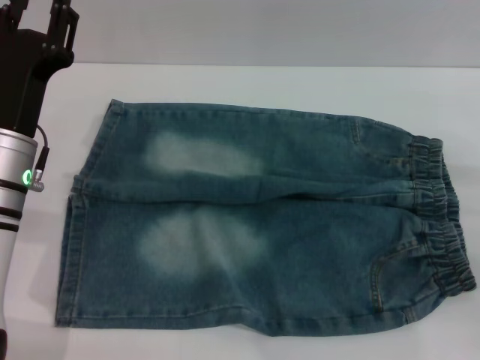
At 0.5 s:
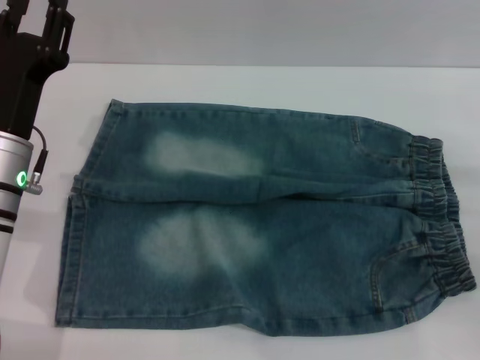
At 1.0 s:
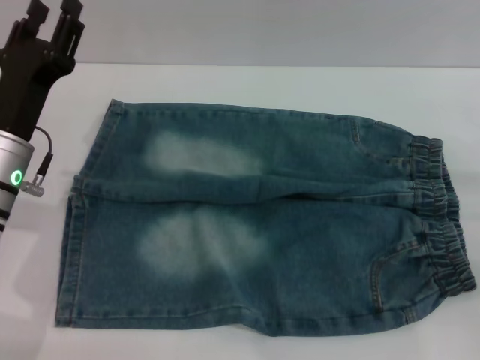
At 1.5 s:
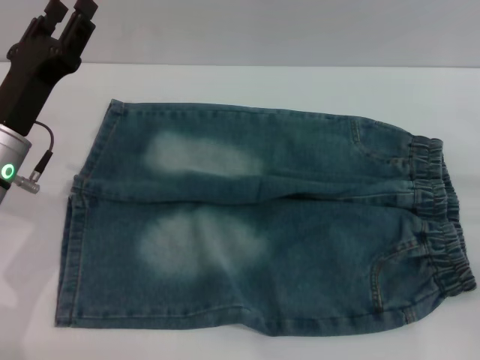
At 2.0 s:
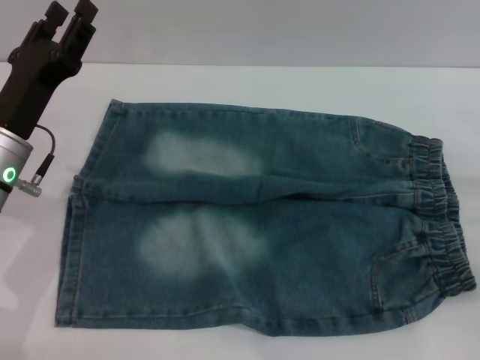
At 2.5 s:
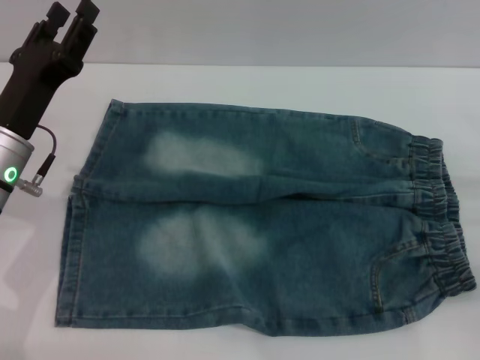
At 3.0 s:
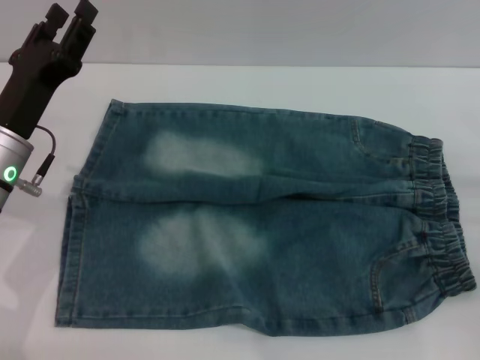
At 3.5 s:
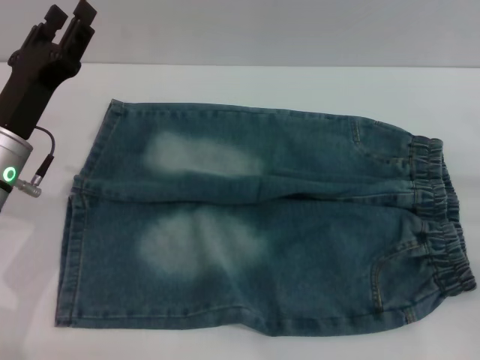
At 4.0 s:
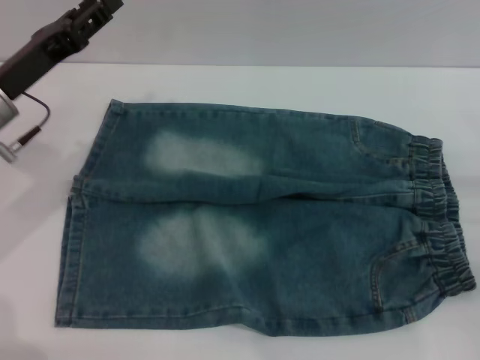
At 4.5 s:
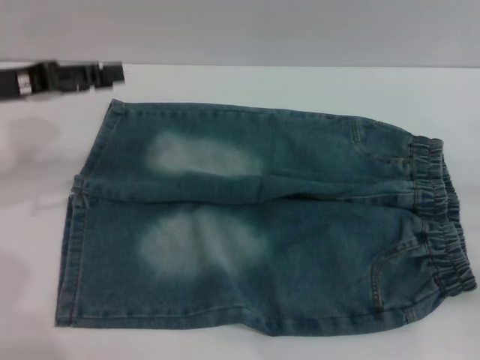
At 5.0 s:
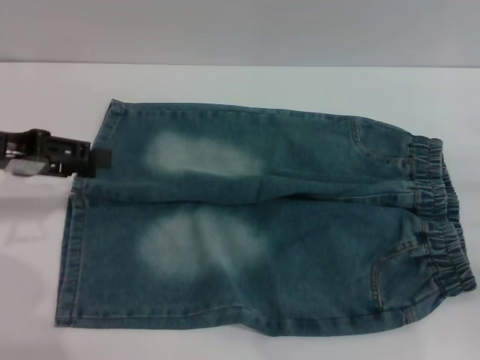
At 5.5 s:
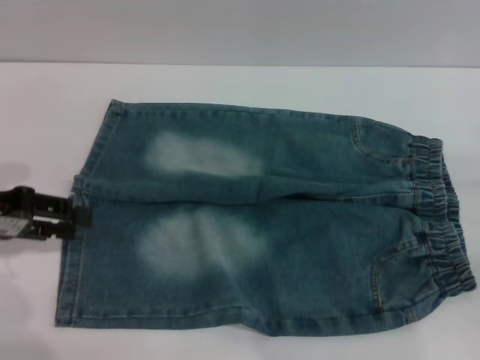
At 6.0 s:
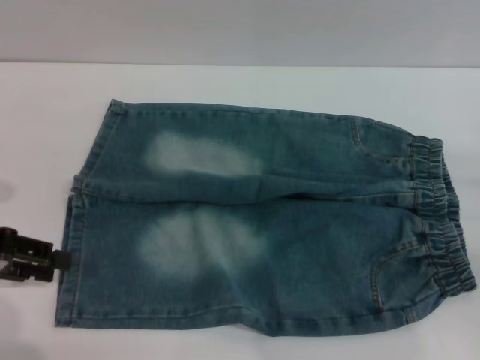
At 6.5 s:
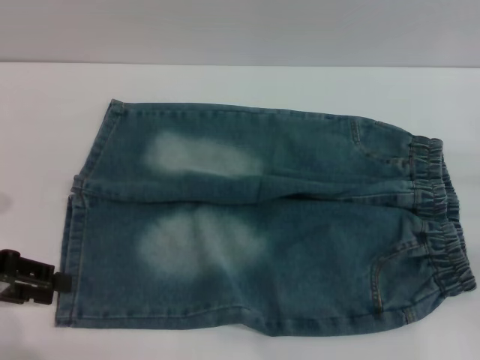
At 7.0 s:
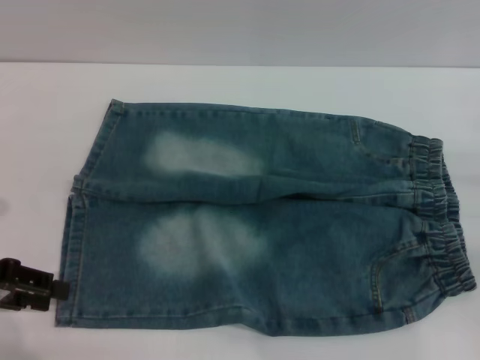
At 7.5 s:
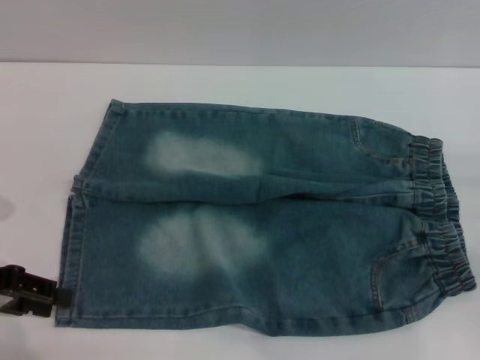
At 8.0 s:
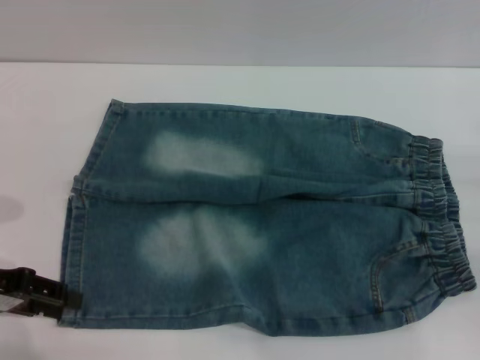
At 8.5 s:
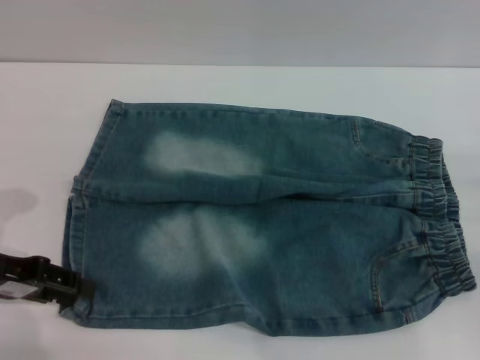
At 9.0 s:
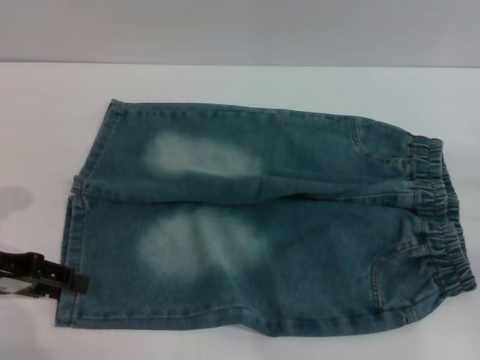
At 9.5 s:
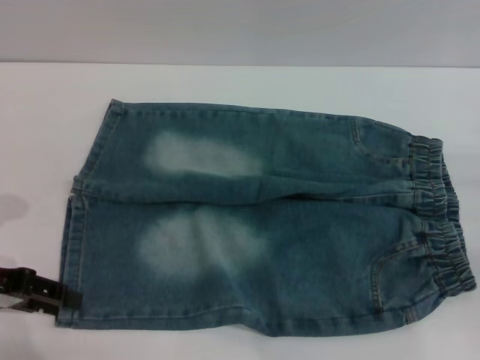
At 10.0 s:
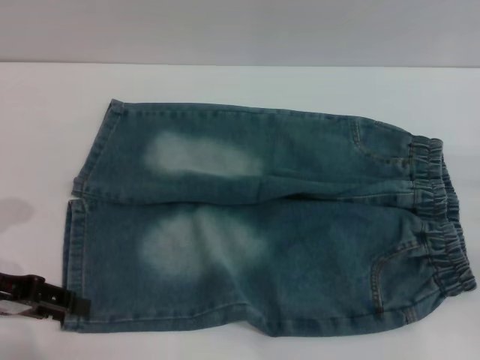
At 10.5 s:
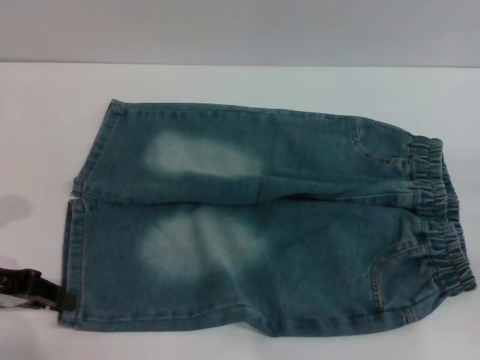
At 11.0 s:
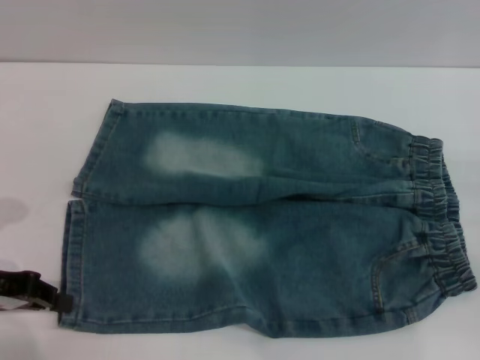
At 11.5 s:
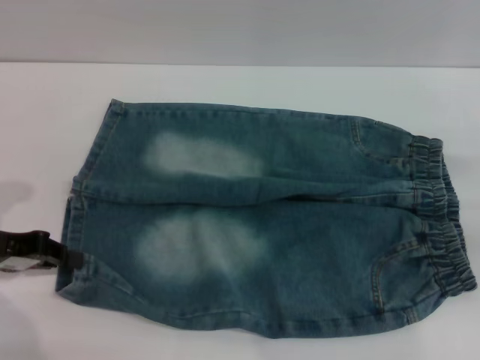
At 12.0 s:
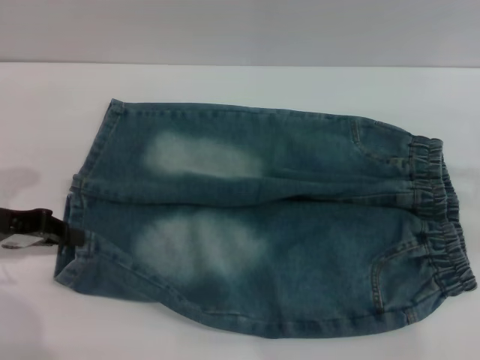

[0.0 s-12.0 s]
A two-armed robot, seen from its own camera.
2.0 to 4.0 s: The left gripper moves about 5 cm.
4.0 to 6.0 s: The left gripper travels to the left and backward by roughly 10 cm.
6.0 to 10.0 s: There are only small adjustments of the grippers.
10.0 to 12.0 s: The left gripper closes. The right gripper goes roughly 15 cm upward.

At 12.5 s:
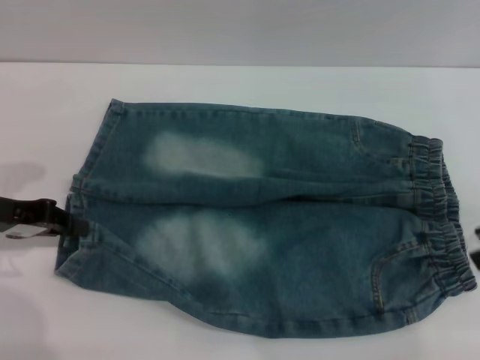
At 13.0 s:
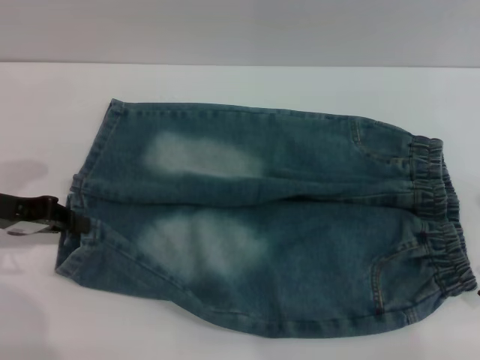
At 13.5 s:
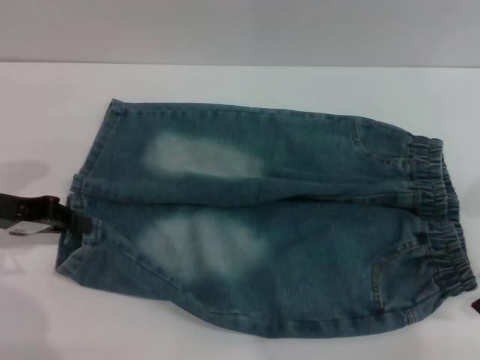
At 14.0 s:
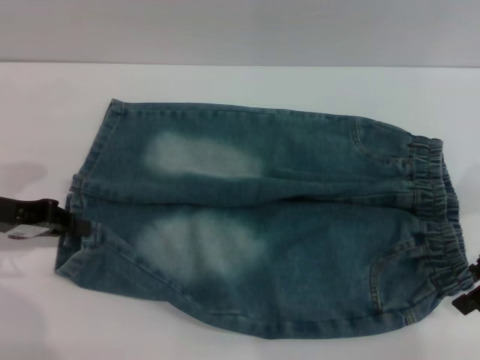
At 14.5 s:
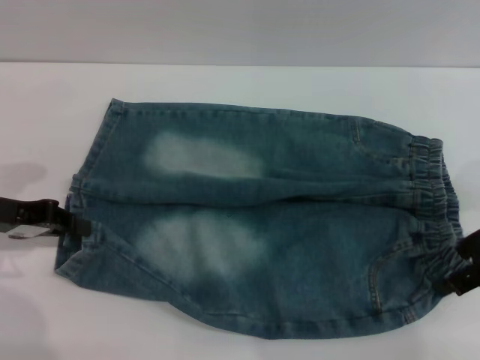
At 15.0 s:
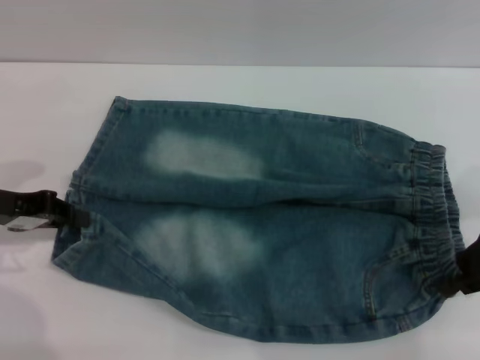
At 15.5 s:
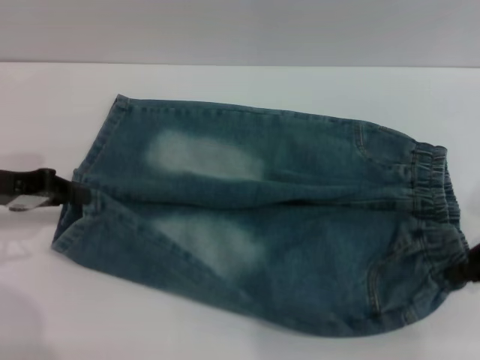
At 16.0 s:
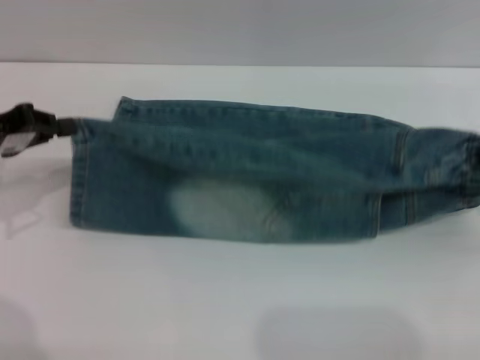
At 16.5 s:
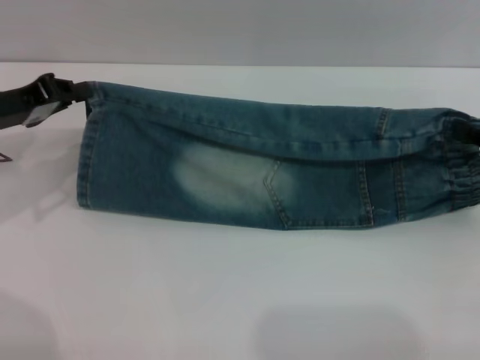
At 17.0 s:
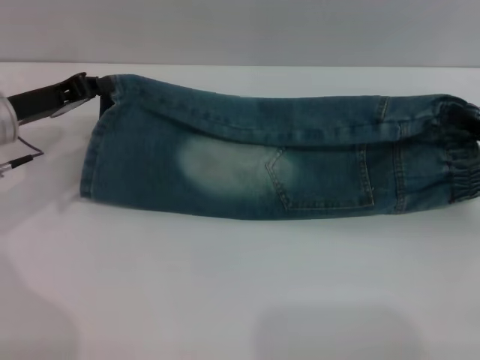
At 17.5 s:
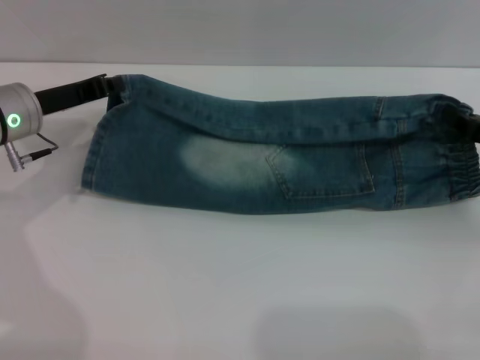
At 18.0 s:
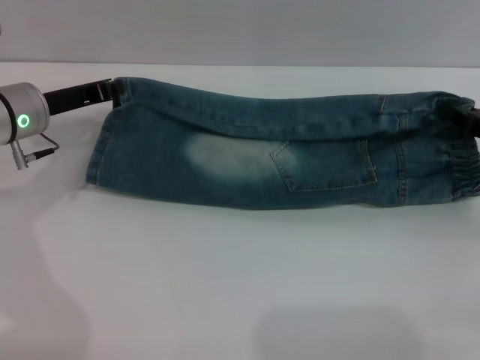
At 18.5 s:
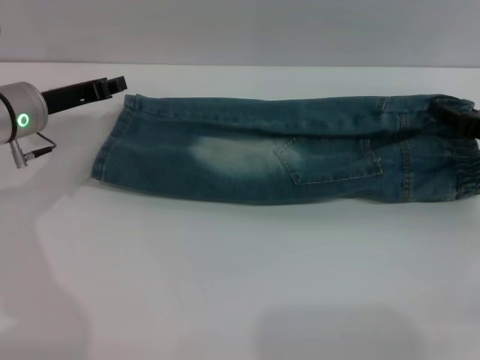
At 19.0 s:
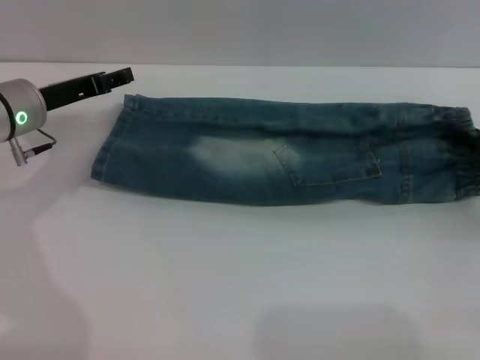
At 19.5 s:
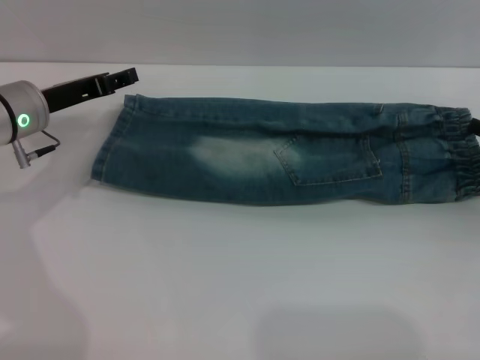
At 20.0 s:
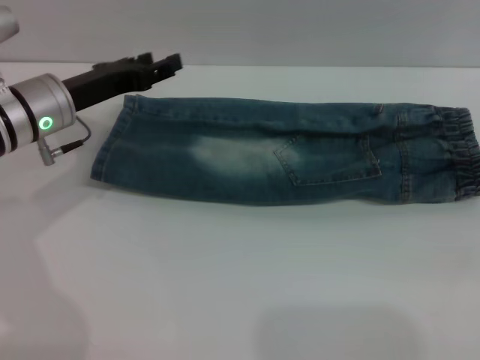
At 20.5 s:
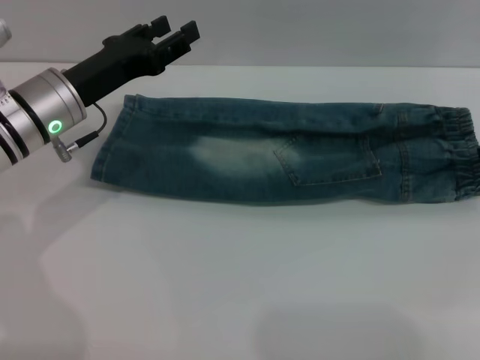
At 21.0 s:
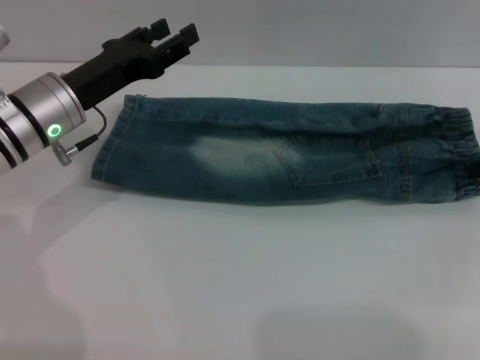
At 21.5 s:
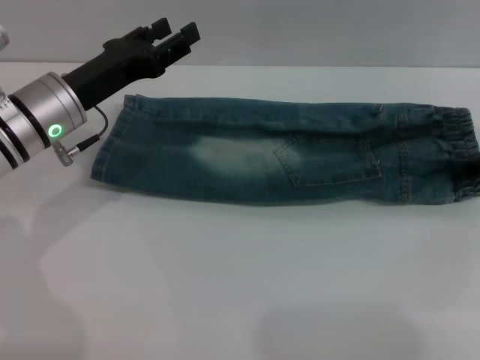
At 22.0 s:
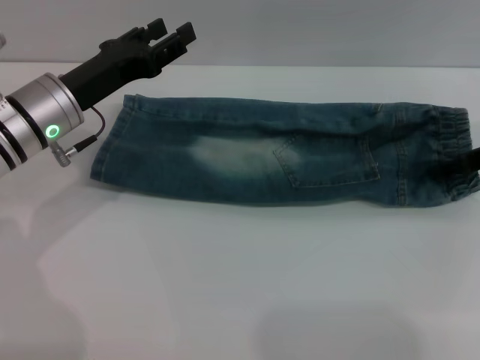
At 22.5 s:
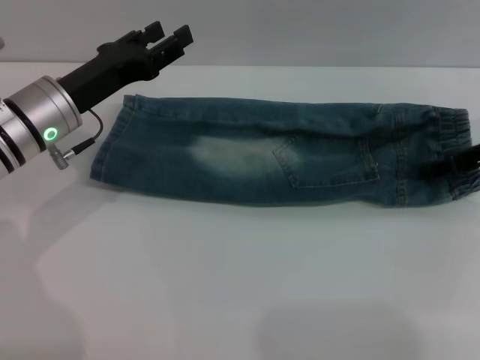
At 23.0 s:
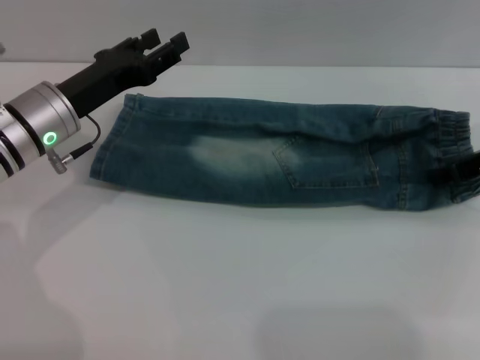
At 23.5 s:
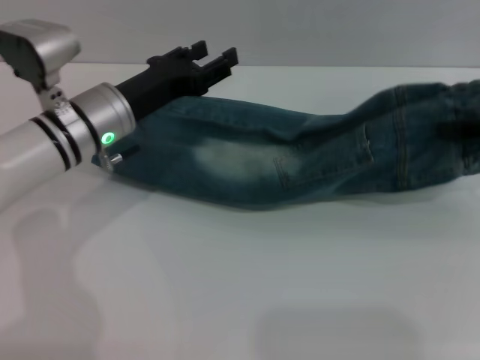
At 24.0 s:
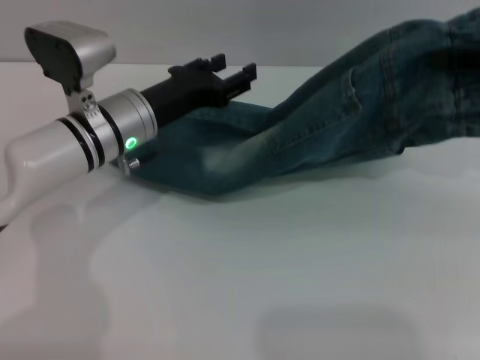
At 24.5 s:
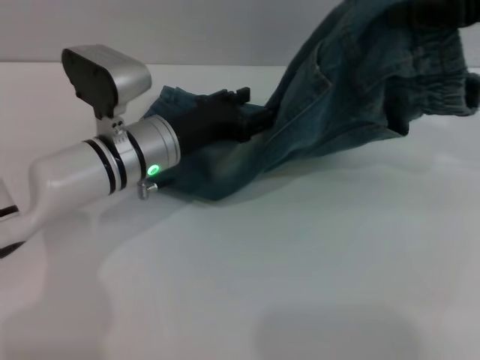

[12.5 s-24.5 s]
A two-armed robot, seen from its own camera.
Step, 12.5 to 19.5 s: Fold the bottom of the pants upward with both grippers.
12.5 to 14.5 s: The right gripper heads to the left, covering roughly 5 cm.
14.5 to 16.5 s: The right gripper shifts roughly 5 cm to the right, and closes.
16.5 to 18.5 s: The right gripper shifts by approximately 5 cm, and opens up. The left gripper heads to the right, covering about 5 cm.
18.5 to 20.5 s: The right gripper shifts approximately 10 cm upward. The left gripper moves roughly 5 cm, and opens its fingers.
20.5 to 22.5 s: The right gripper moves to the left and downward, about 10 cm.
22.5 to 24.5 s: The right gripper moves upward, about 15 cm, and closes up. The left gripper heads to the right, covering roughly 10 cm.

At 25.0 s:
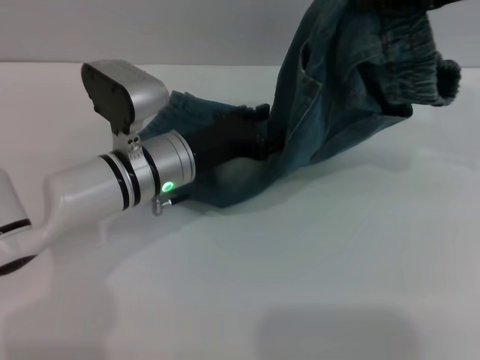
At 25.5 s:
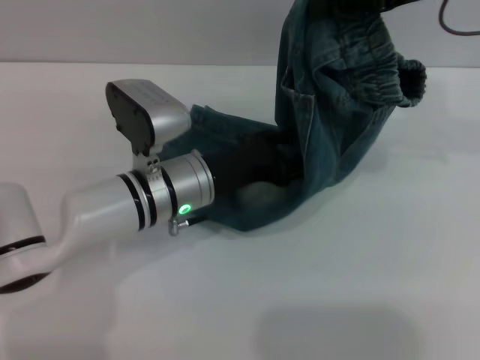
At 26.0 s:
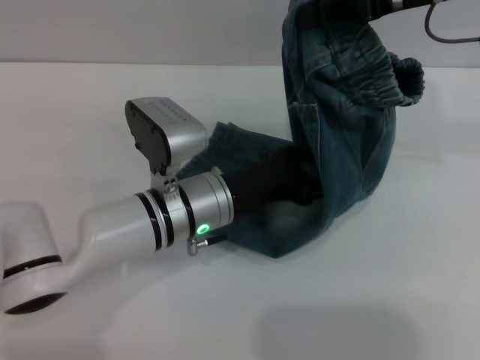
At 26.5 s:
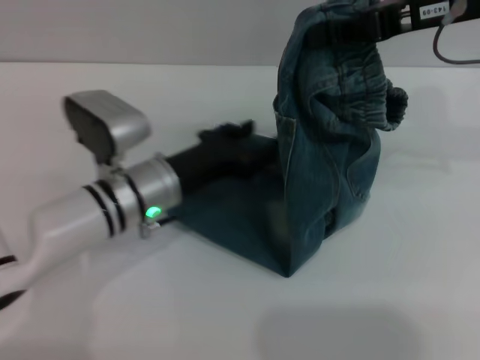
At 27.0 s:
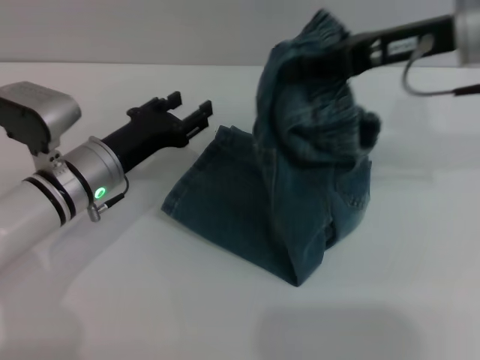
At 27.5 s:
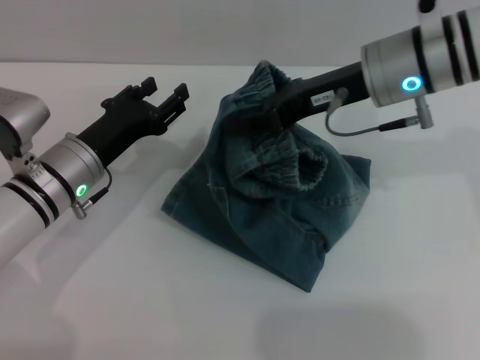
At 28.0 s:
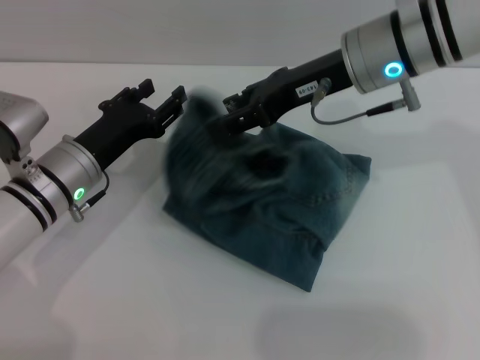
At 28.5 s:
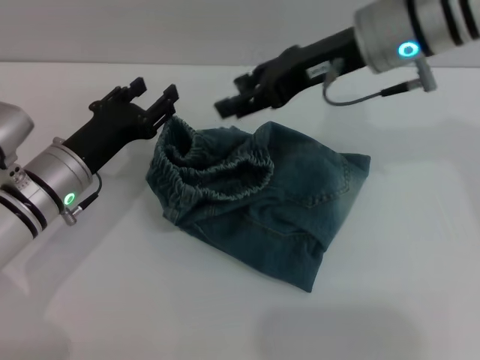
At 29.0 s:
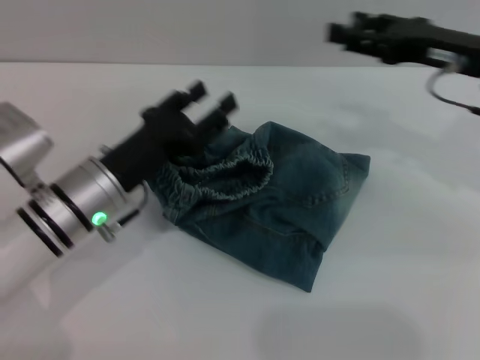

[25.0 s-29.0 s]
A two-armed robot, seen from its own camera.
Step, 25.0 to 28.5 s: Fold the pants from right to left with the right gripper.
25.0 to 27.0 s: The left gripper is displaced to the left by some 5 cm. Meanwhile the right gripper shifts some 10 cm downward and to the left.
27.0 to 29.0 s: The right gripper travels to the right and downward by roughly 10 cm, and opens its fingers.
